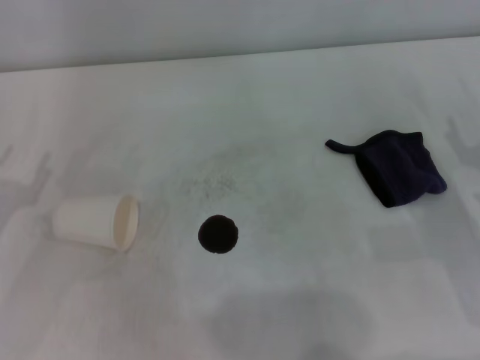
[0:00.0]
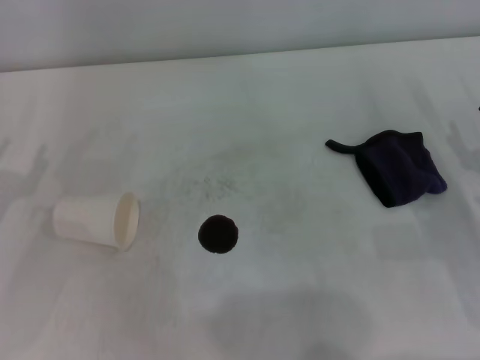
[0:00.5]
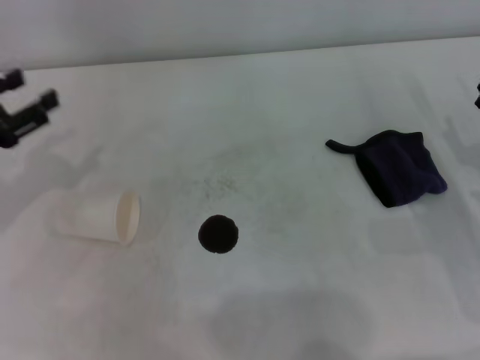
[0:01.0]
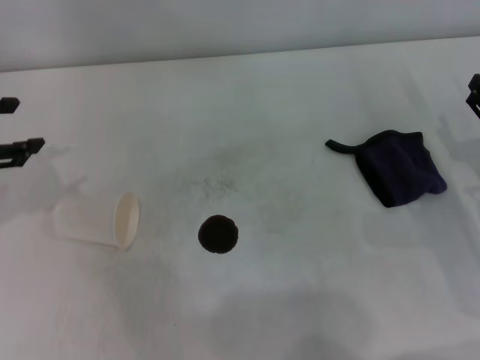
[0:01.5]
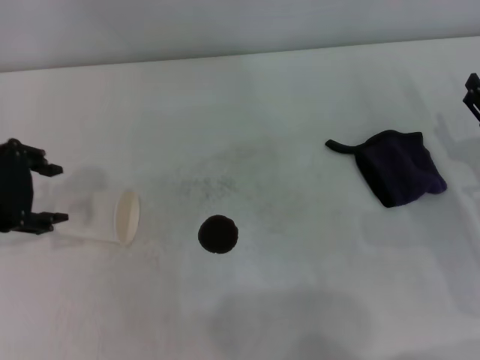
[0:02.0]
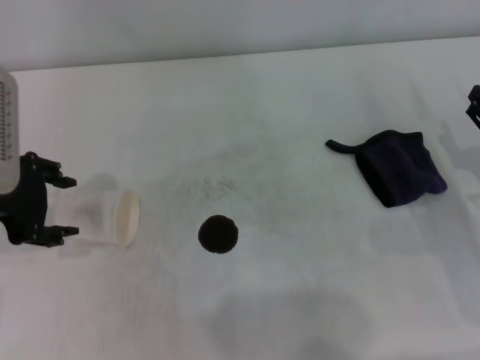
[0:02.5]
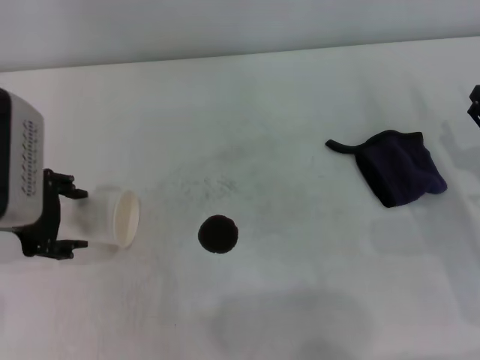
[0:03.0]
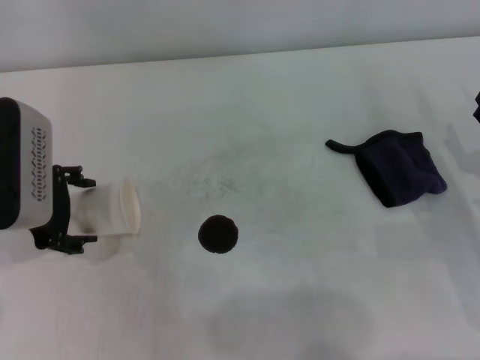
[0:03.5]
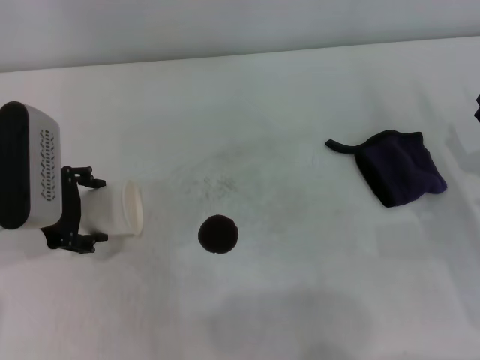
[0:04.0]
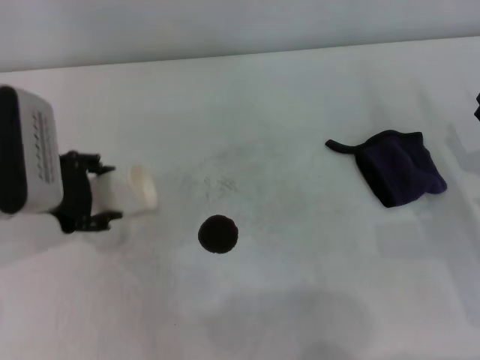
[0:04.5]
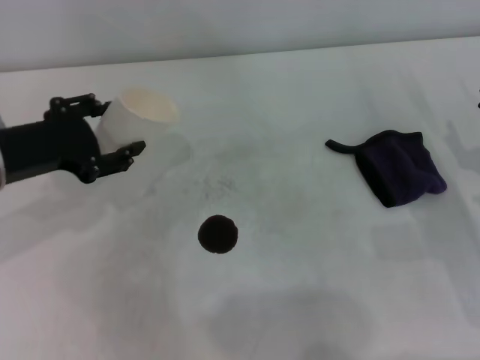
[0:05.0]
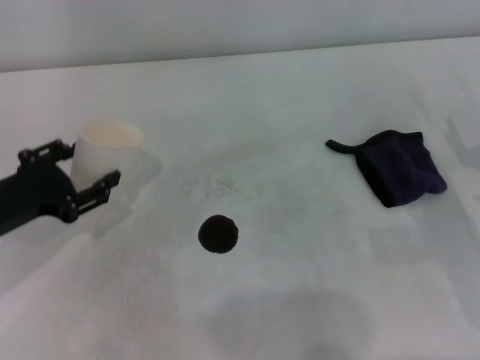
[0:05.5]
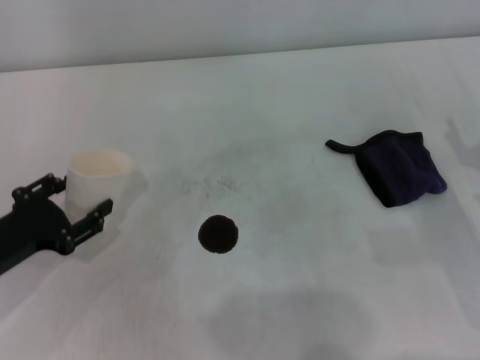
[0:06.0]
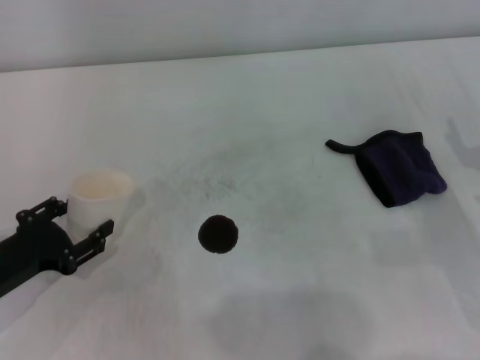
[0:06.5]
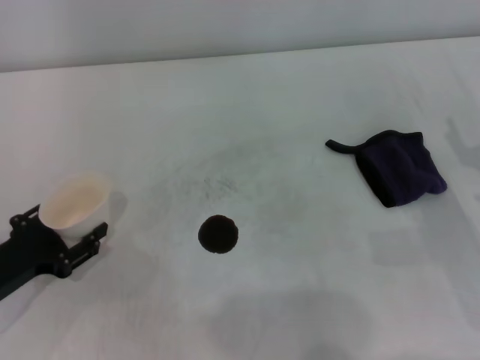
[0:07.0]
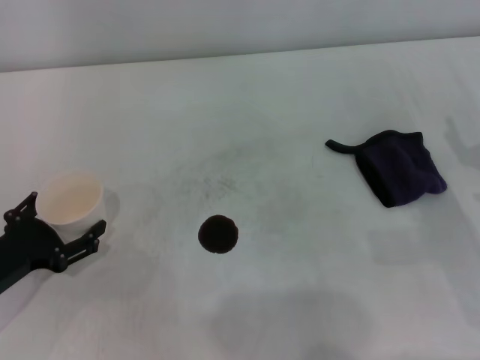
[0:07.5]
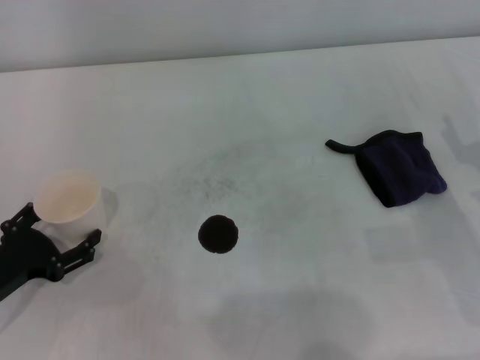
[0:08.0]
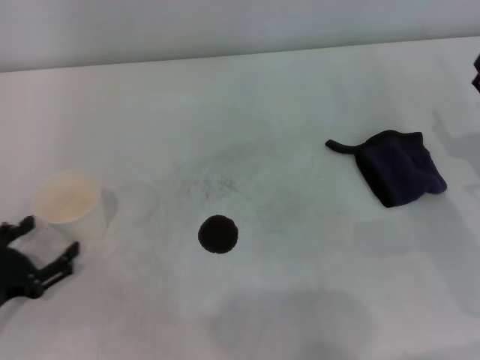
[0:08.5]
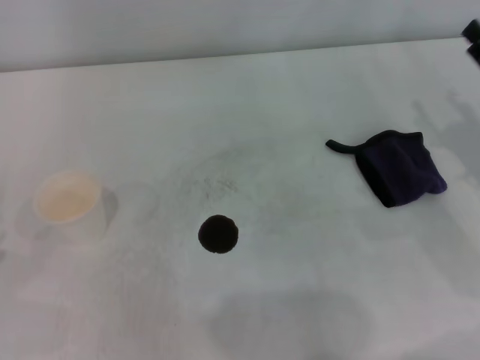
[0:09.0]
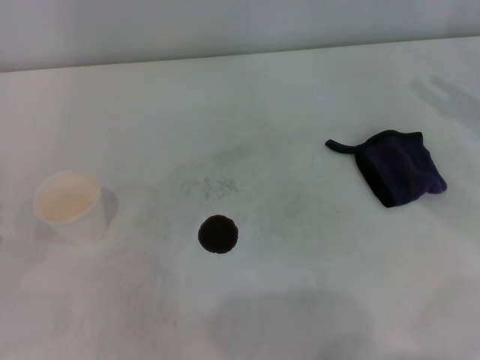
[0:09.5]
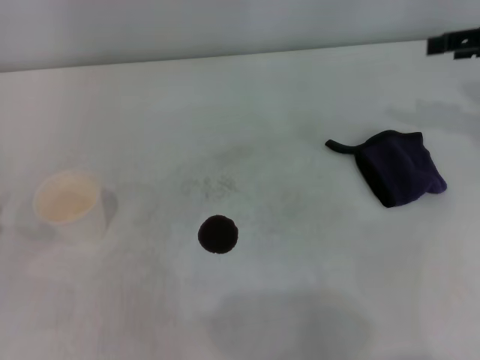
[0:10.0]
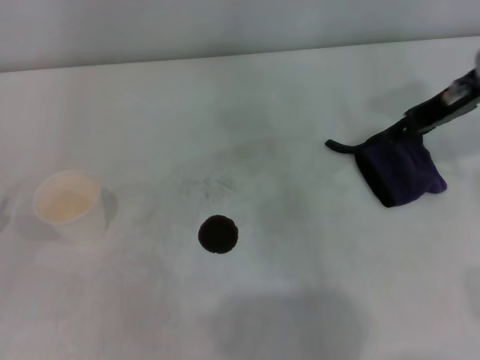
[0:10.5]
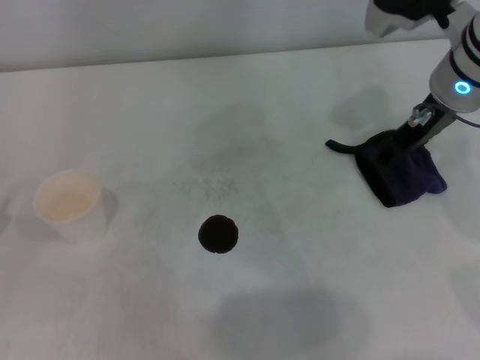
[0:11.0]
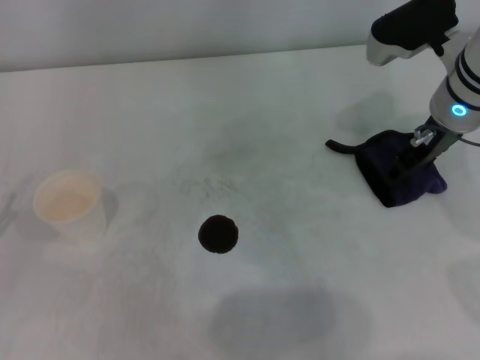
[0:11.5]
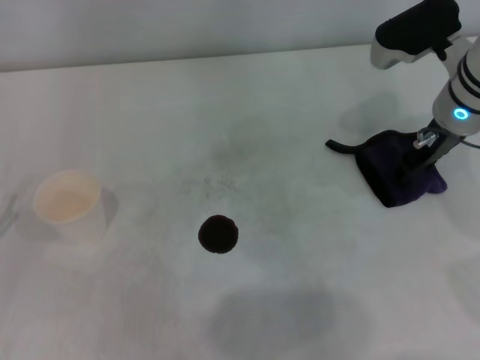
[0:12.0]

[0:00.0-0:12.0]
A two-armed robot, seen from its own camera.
Step, 0:00.0 to 0:03.0: Grasp the paper cup with the left gripper.
Step, 0:03.5 to 0:07.0: Stand the paper cup upright with the left gripper.
0:00.0 to 0:02.0: The left gripper shifts roughly 15 cm upward, to the right and forward.
0:02.0 to 0:04.0: The left gripper shifts approximately 5 cm downward, and opens up.
0:04.0 to 0:06.0: The left gripper travels downward, backward and to the left by about 10 cm, and closes.
0:06.0 to 0:08.0: The left gripper opens its fingers.
0:08.0 to 0:10.0: The left gripper goes about 5 cm to the left. Meanwhile the right gripper moves upward and forward, about 20 cm.
0:10.0 to 0:12.0: The right gripper heads to the left and downward, covering about 15 cm.

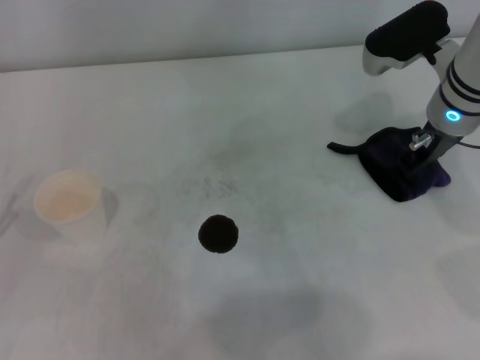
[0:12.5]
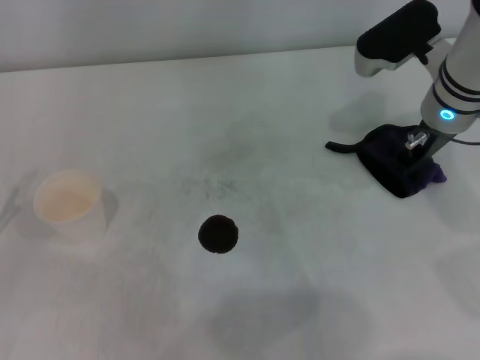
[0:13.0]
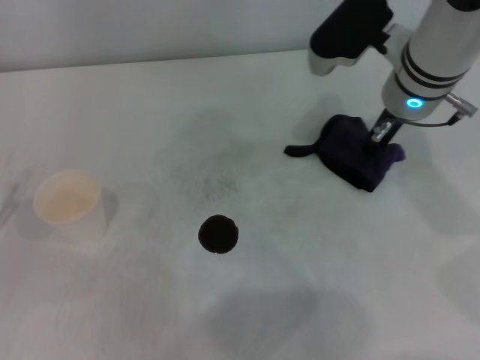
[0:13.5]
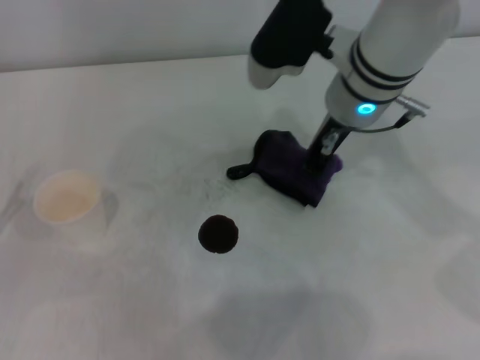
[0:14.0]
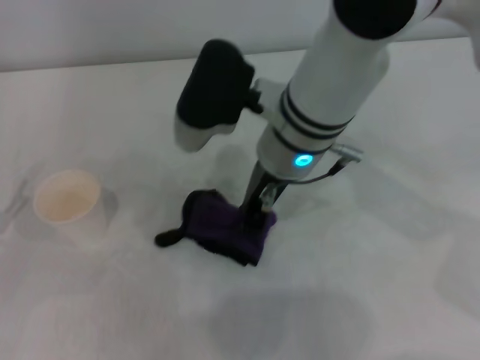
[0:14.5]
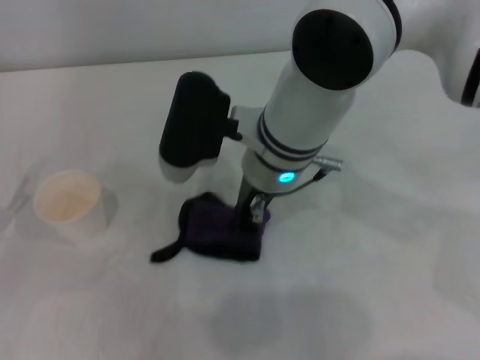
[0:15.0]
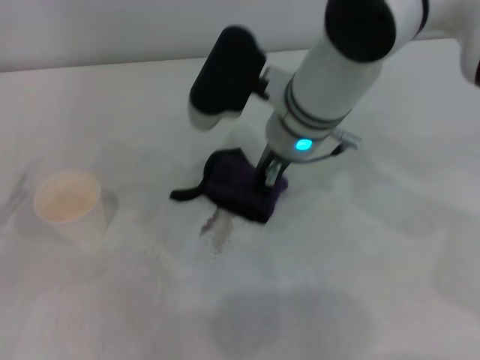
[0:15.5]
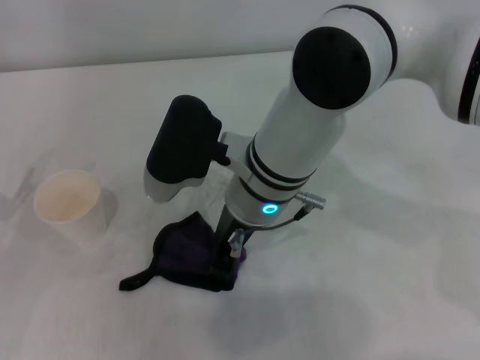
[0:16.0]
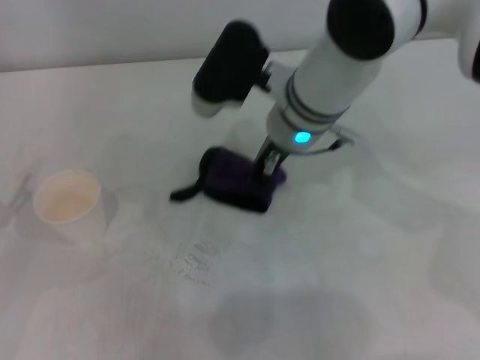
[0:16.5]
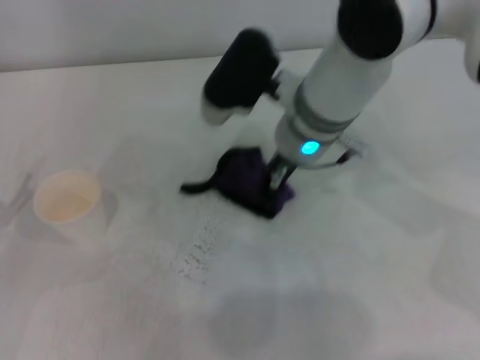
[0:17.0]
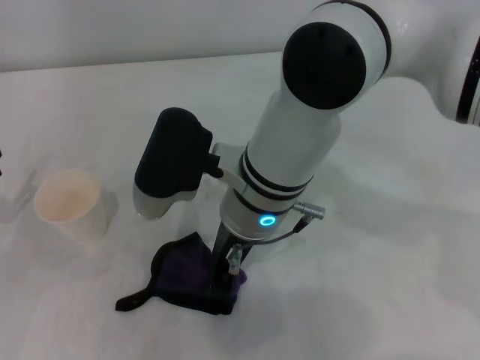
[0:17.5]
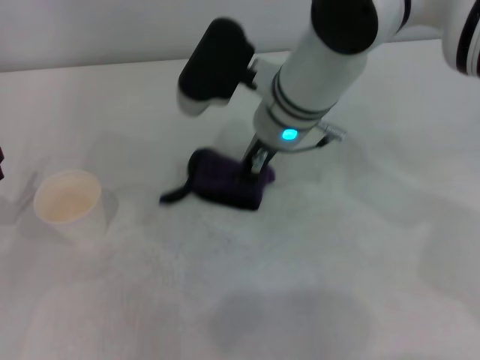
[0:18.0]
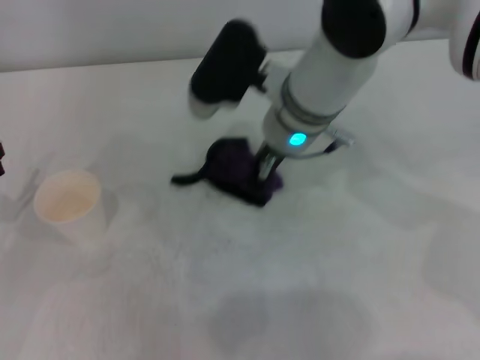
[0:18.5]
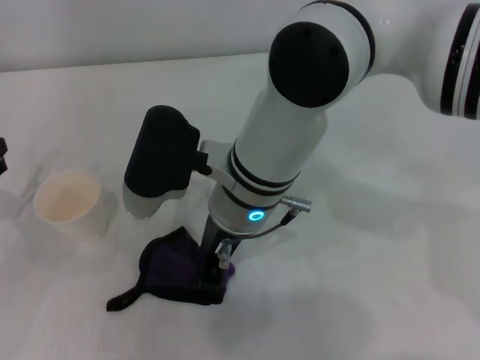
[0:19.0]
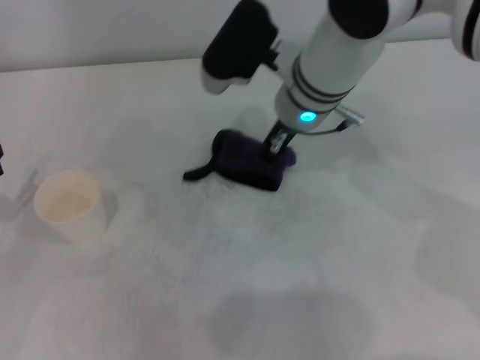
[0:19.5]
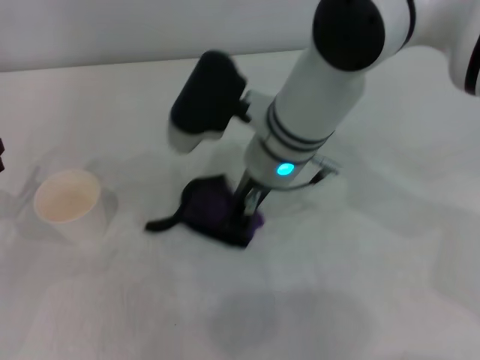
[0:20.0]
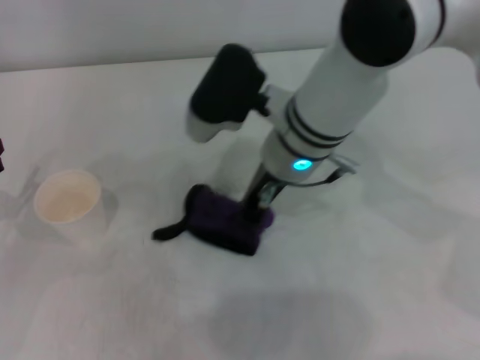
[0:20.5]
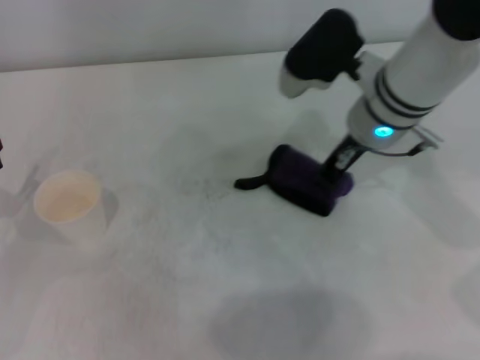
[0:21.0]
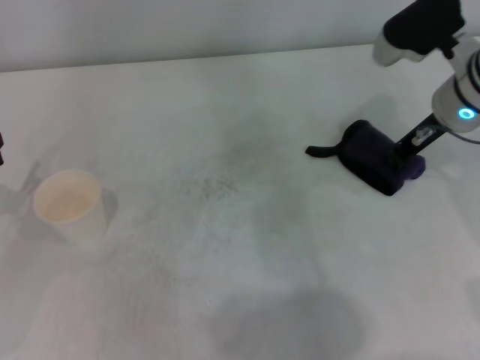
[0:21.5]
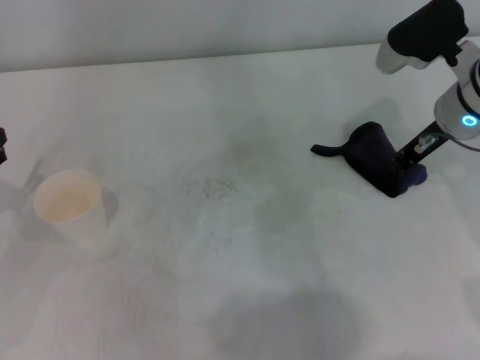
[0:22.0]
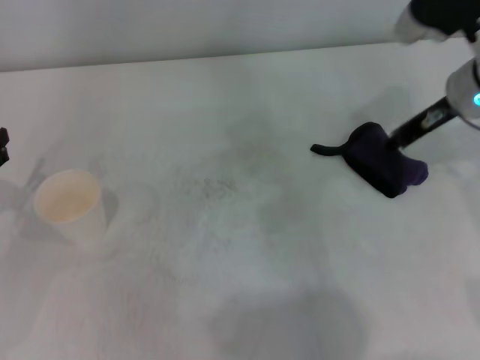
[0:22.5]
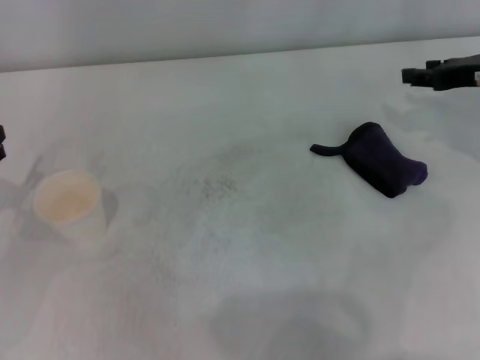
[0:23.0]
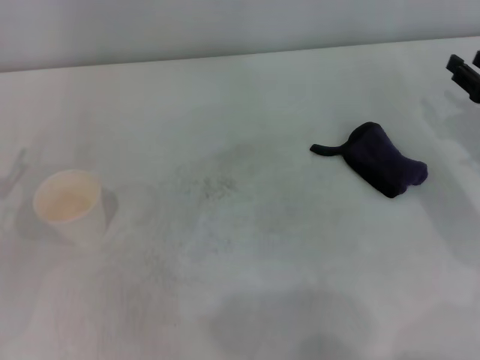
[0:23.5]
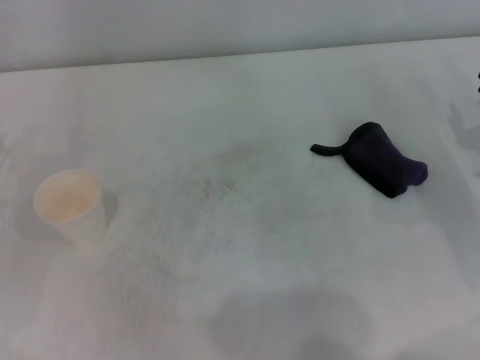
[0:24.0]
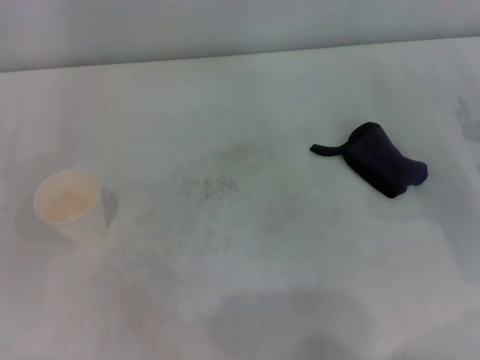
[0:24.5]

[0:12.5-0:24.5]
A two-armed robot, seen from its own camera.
Step, 0:12.5 to 0:20.5: Wipe the stains off the table with the right gripper.
Step, 0:21.0 to 0:22.0: Place the rag on the table with the right gripper.
0:12.5 to 0:14.5: The right gripper shifts about 20 cm to the left, and closes.
0:14.5 to 0:16.5: The right gripper moves approximately 5 cm.
0:16.5 to 0:18.5: The right gripper reaches approximately 10 cm backward, then returns.
0:18.5 to 0:20.5: The right gripper moves forward and backward over roughly 10 cm, changing direction 2 times.
0:20.5 to 0:22.5: The right gripper moves to the right, about 20 cm.
0:22.5 to 0:24.5: The right gripper is displaced to the right, backward and downward by roughly 15 cm, and opens its fingers.

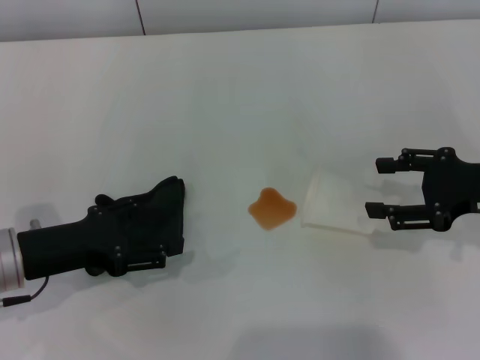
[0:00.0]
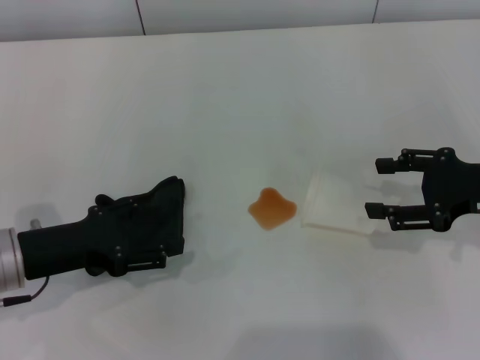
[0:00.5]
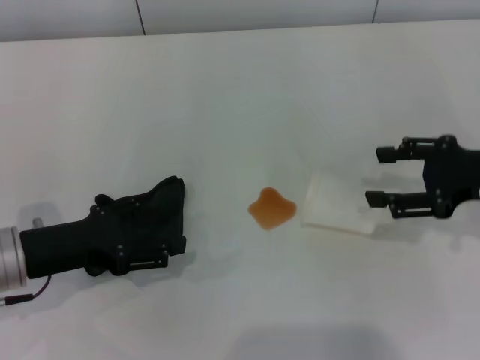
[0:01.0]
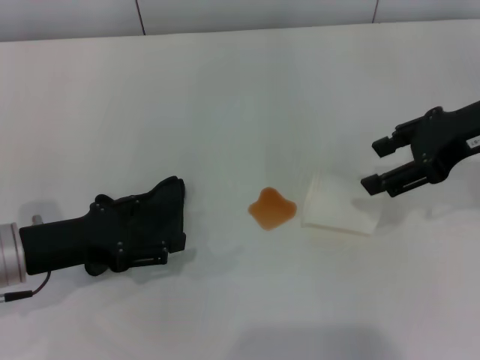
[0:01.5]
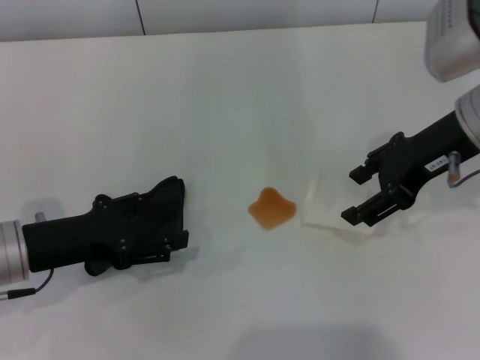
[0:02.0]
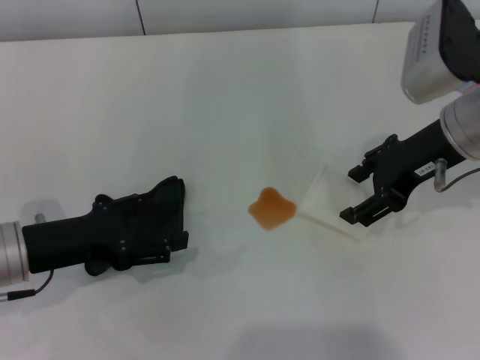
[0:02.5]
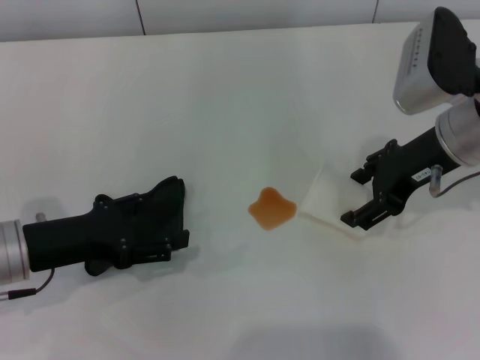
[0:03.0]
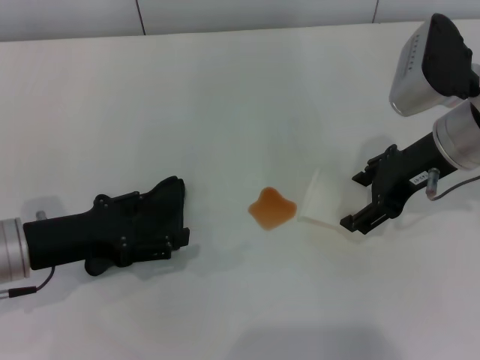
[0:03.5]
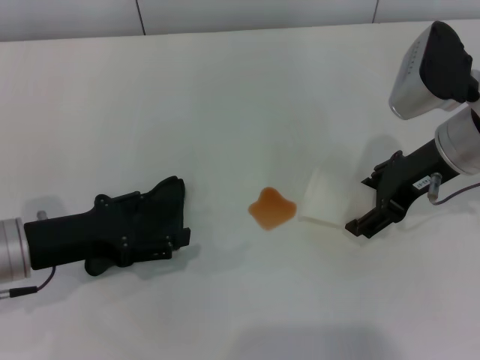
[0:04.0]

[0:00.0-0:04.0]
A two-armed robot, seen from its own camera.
0:00.0 to 0:02.0: The right gripper moves to the left, upward and forward, about 15 cm.
0:02.0 to 0:04.0: The grippers stay close to where they were, moving slightly.
